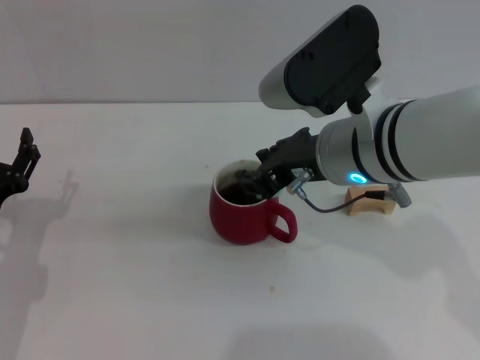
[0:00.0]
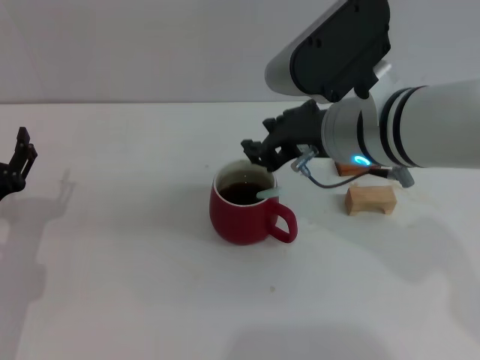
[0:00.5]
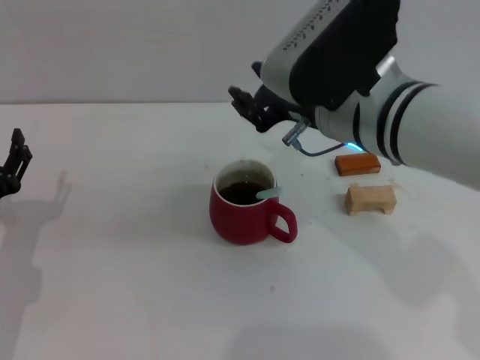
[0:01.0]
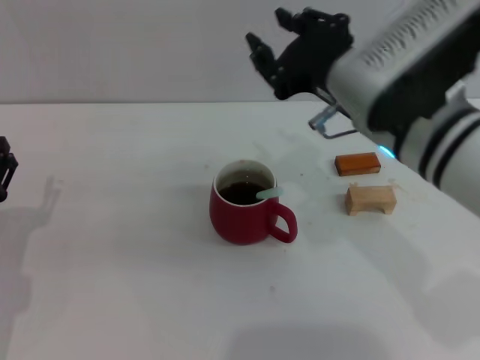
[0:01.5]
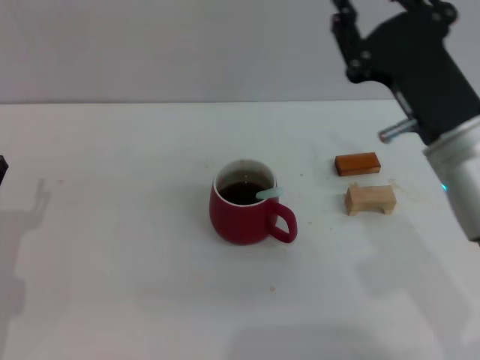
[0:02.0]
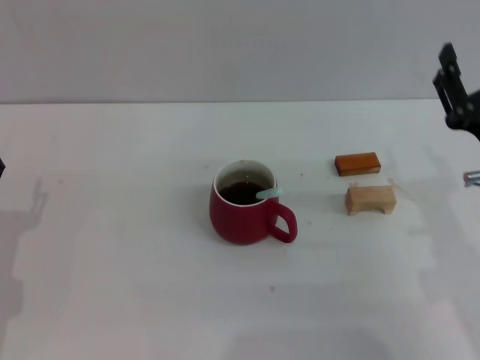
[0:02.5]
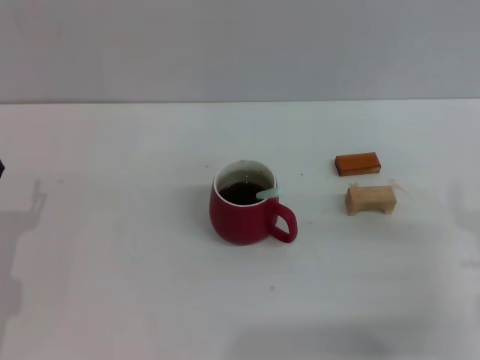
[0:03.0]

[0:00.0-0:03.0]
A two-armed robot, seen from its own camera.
Task of the whole recording: Move the red cup to the center, lift the blue spoon, stir it three times in the cup, and put the spoon into the cup.
0:01.5 to 0:03.0: The right gripper travels to the right, downward and backward by approximately 20 cm.

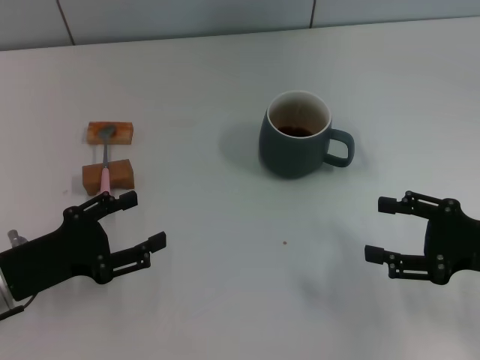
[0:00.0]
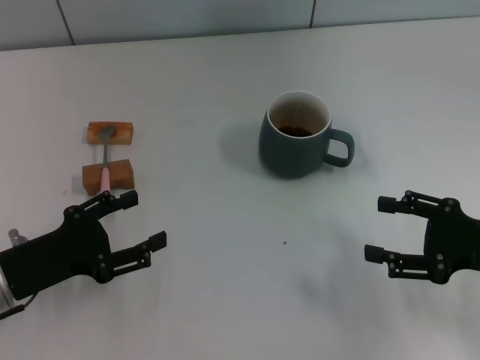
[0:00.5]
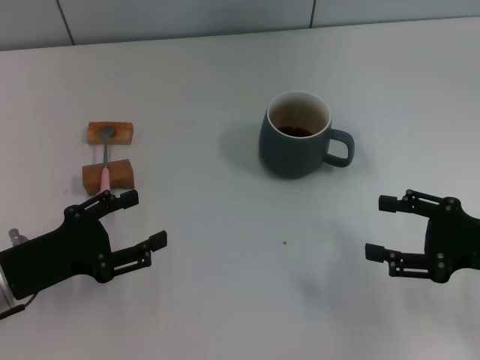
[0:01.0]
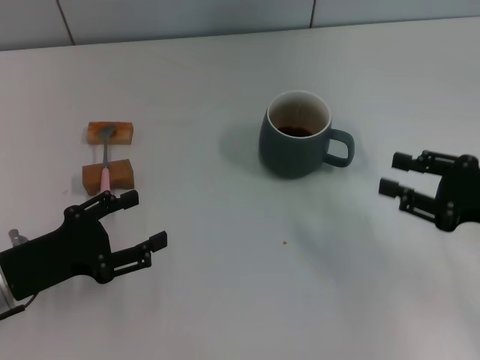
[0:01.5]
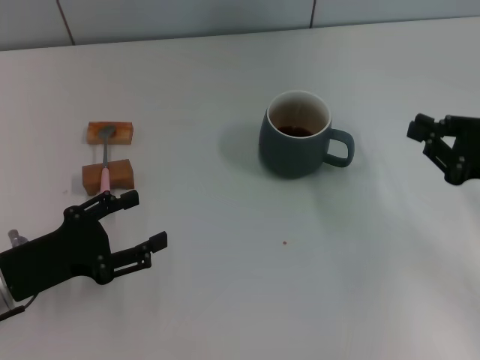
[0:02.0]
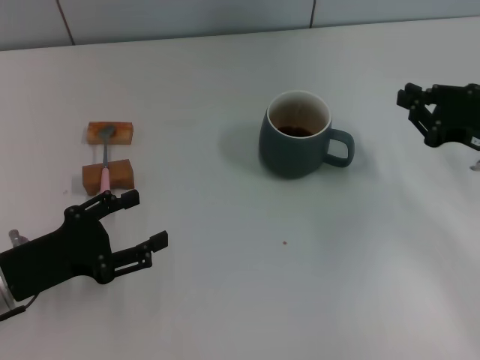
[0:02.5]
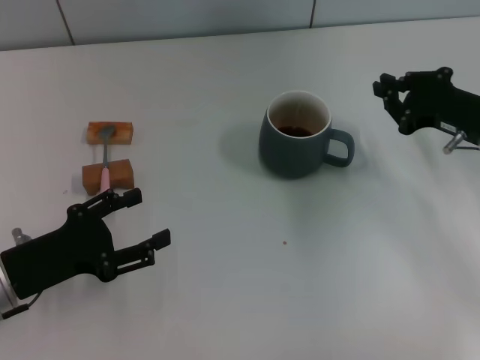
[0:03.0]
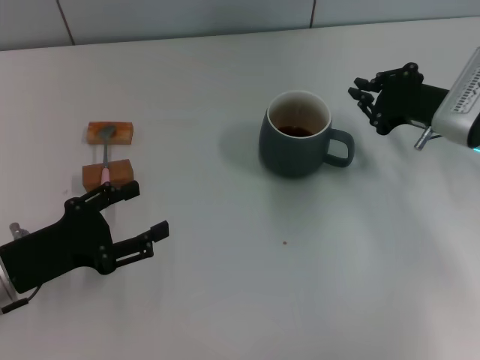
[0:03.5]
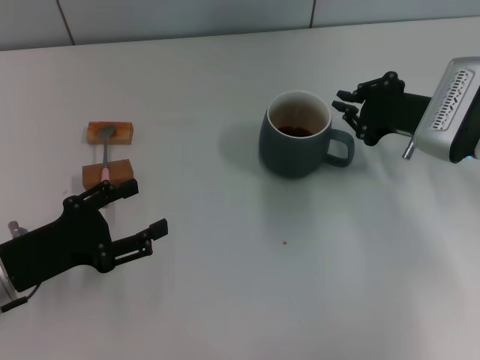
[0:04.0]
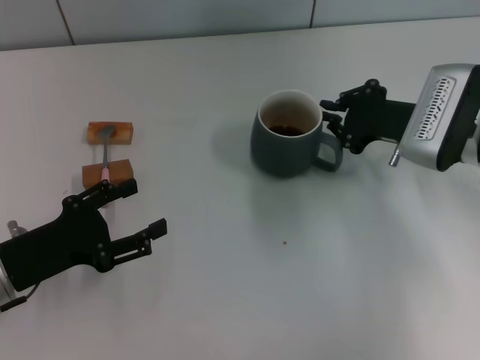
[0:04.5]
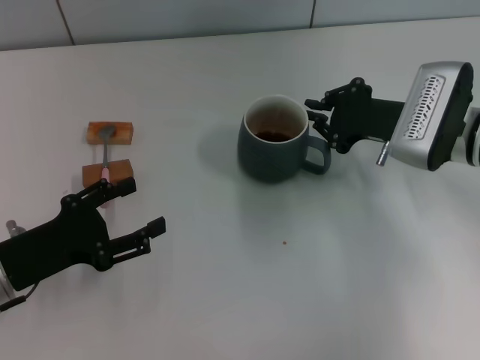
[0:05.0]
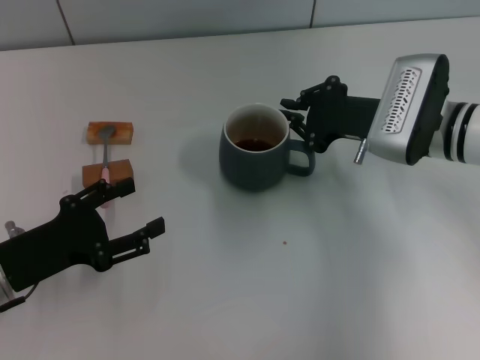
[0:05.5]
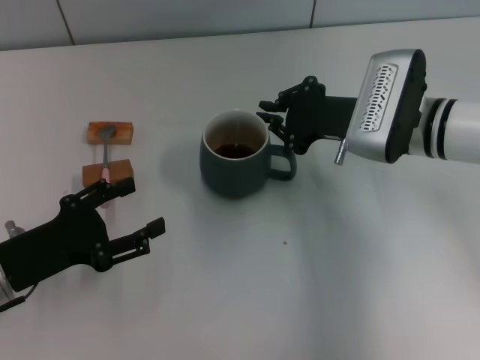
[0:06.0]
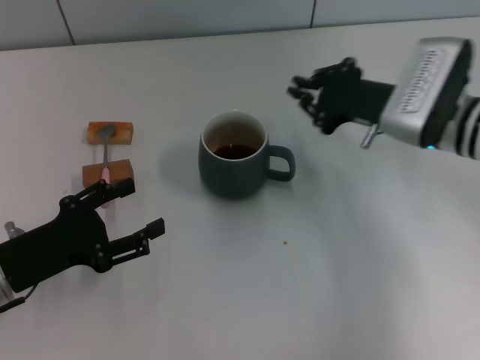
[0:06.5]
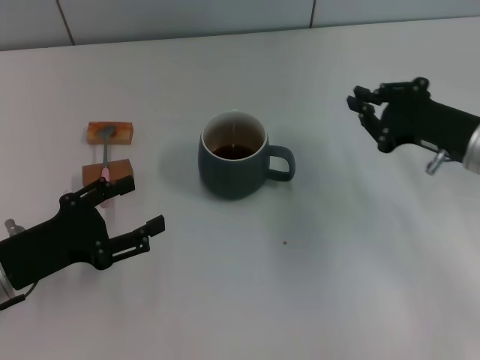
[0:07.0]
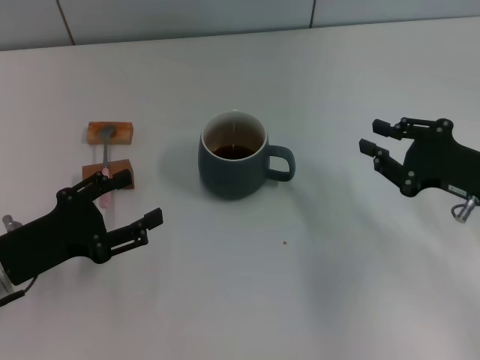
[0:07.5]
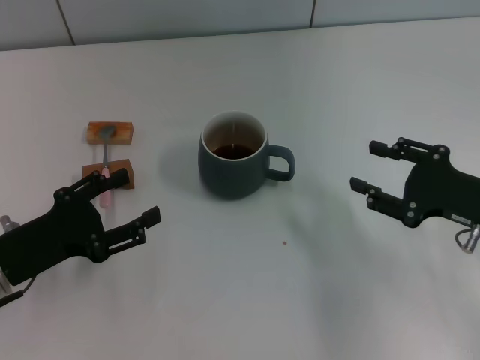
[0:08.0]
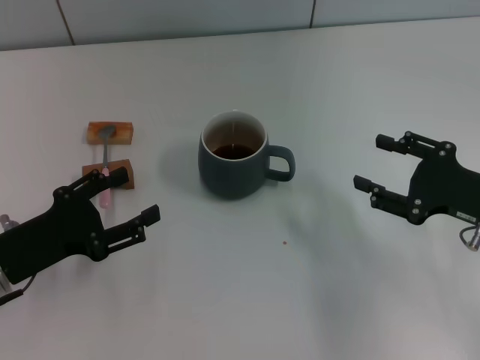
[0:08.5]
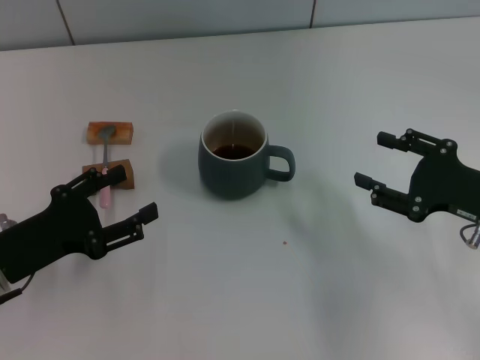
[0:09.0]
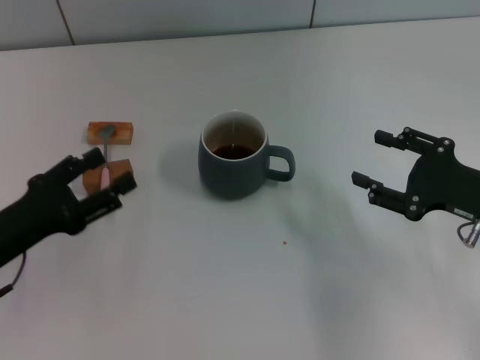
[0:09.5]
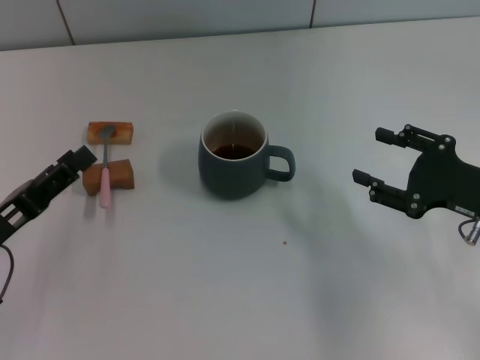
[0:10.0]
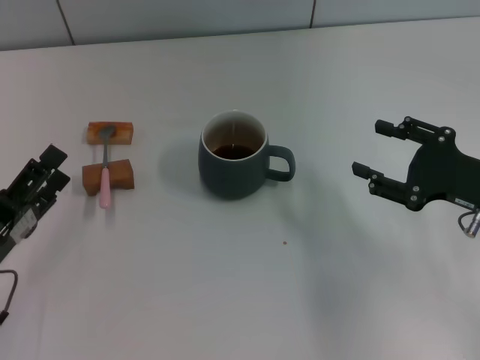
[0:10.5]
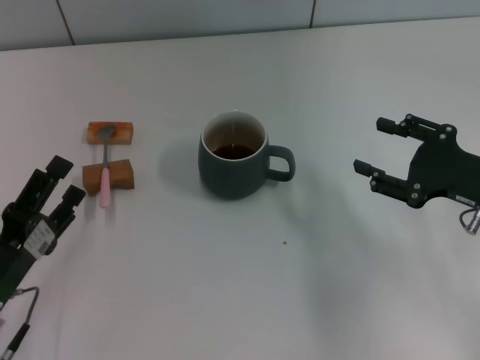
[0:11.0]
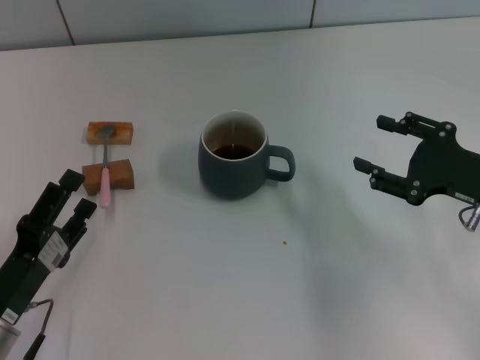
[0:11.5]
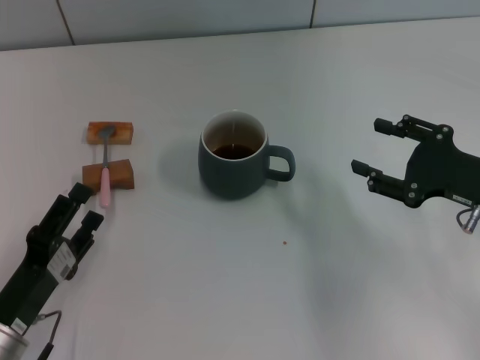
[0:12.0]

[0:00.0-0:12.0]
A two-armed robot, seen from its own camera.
Task of the whole recording: Move the grey cup to the center, lift the pink spoon, stir it three times in the cup, and put the spoon into the cup.
Step, 0:00.0 to 0:06.0: Move the cup with coffee to the center of view with the right gripper.
0:00.0 to 0:02.0: The right gripper closes its fingers.
0:02.0 to 0:04.0: The right gripper heads forward and to the left, covering roughly 15 cm.
0:04.0 to 0:06.0: The right gripper moves to the left, about 10 cm.
0:06.0 to 0:08.0: The right gripper travels to the right and backward by some 15 cm, and opens up.
0:10.0 to 0:12.0: The left gripper goes some 5 cm backward and downward.

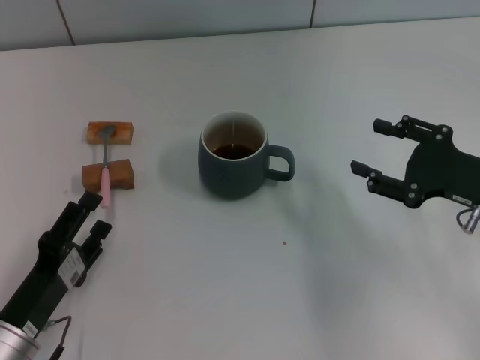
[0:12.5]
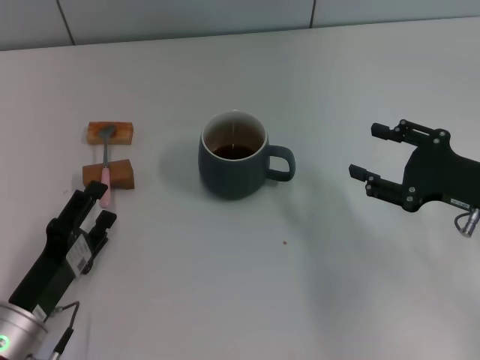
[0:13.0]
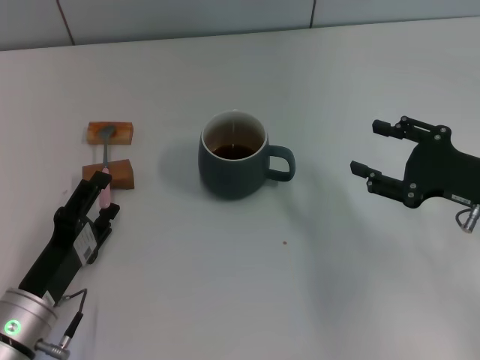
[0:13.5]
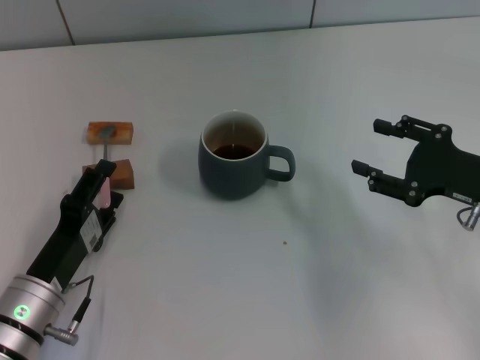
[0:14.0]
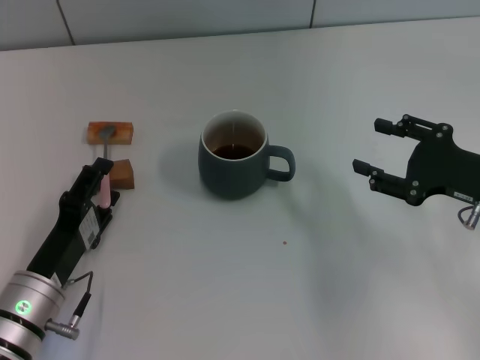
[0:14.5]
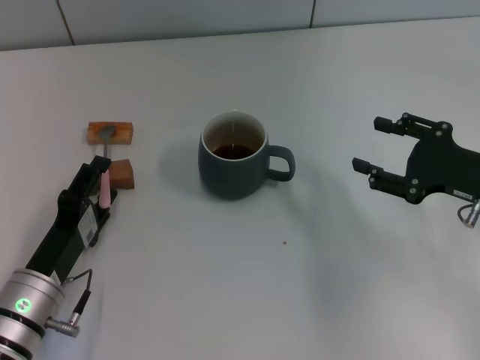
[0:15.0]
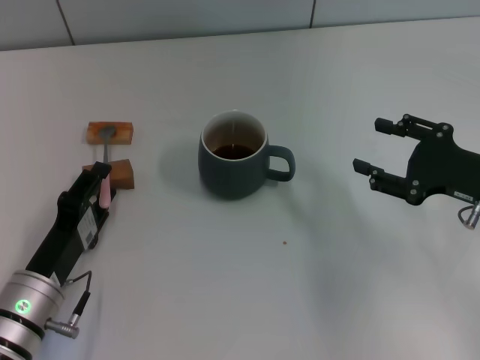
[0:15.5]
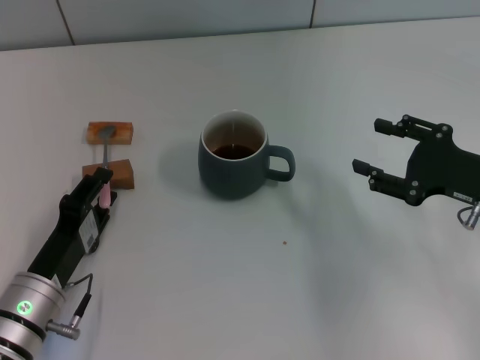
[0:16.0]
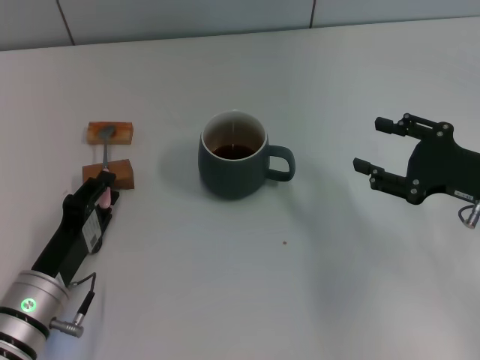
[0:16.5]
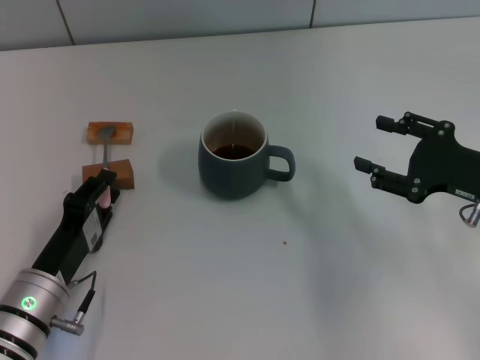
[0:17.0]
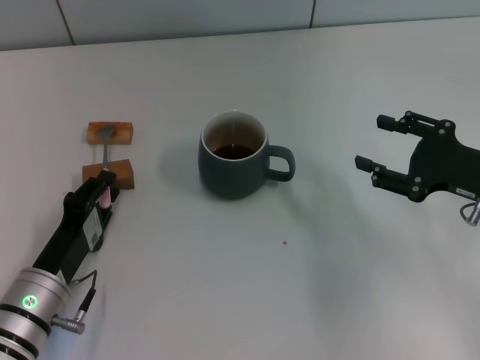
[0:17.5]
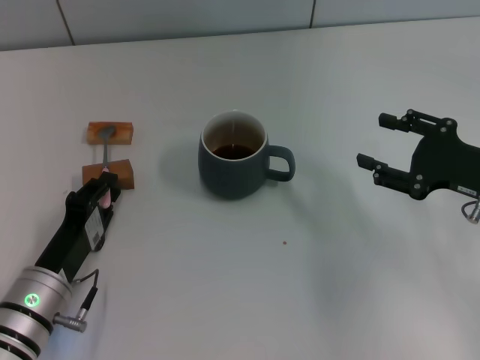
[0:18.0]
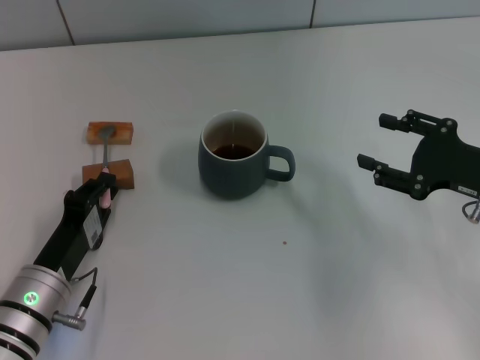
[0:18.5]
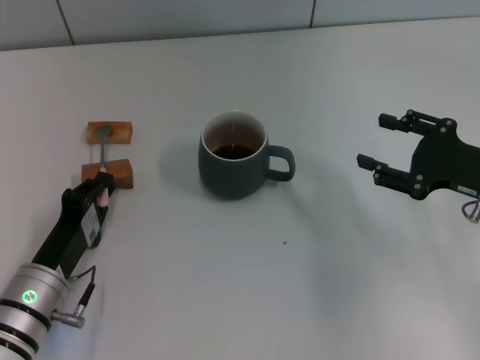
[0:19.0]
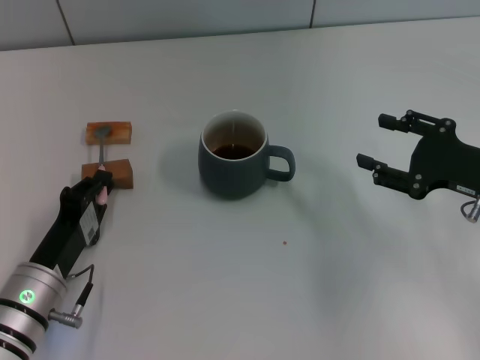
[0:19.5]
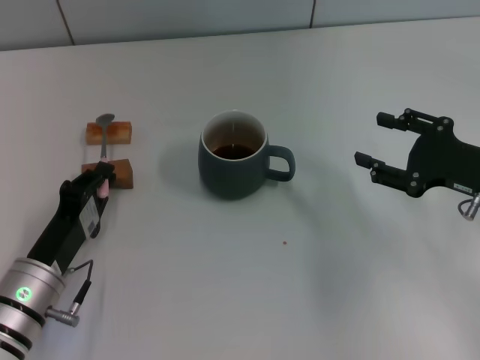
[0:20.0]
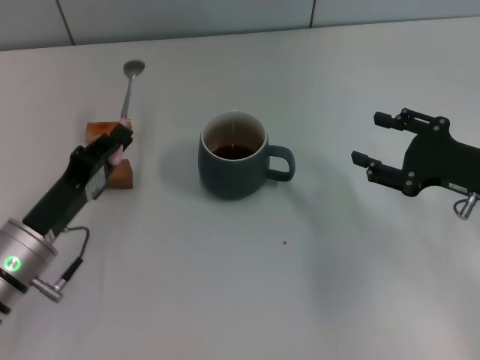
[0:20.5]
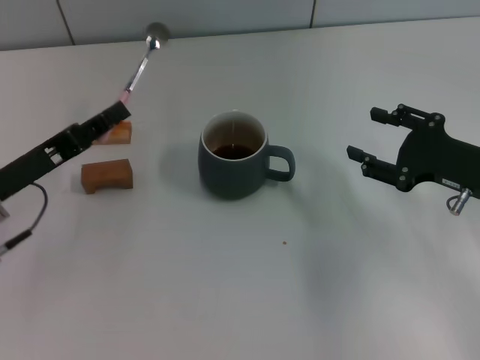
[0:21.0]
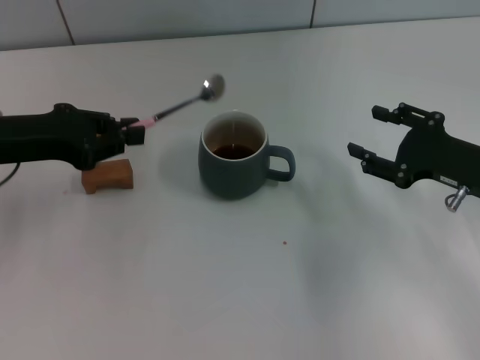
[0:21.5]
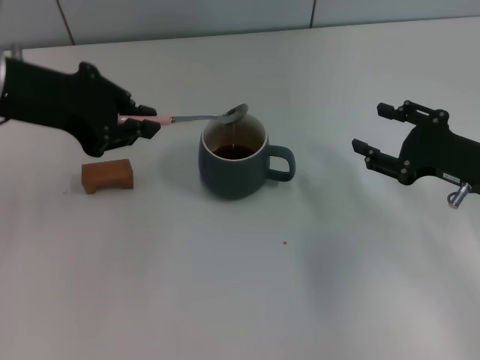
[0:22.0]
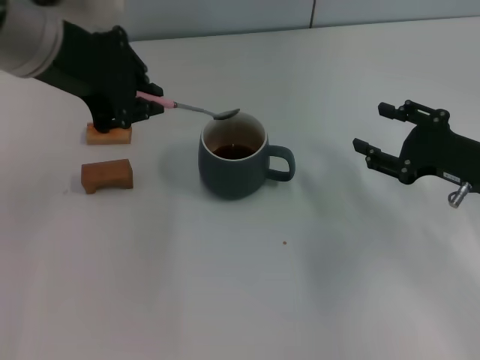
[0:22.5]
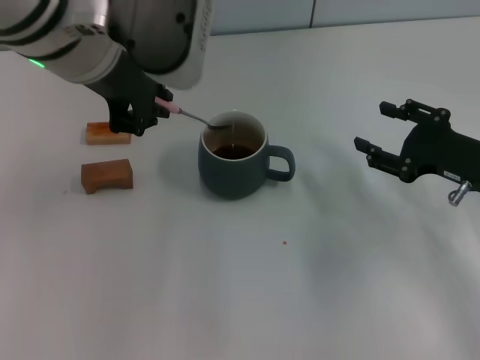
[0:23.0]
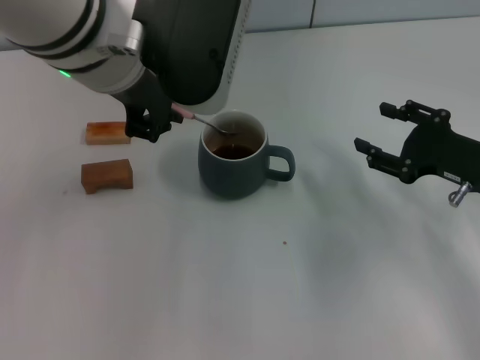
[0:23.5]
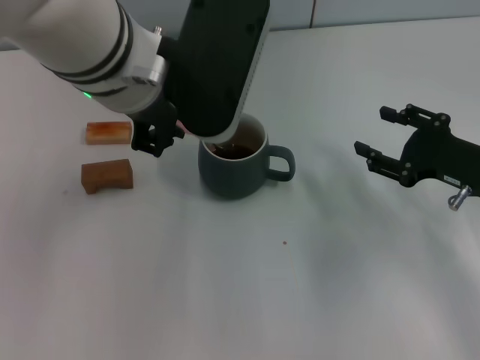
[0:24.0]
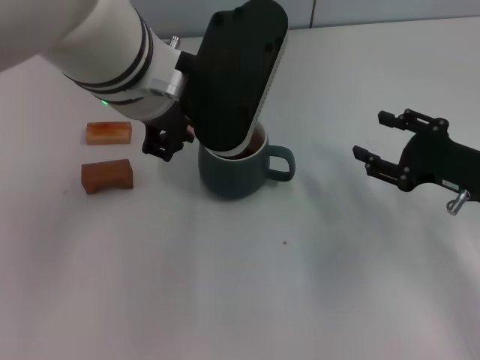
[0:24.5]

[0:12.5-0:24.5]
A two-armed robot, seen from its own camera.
Task of the whole recording: Move the grey cup to the center, lift the pink spoon, stir it three times in the cup, and put the spoon into the cup.
Step, 0:12.5 to 0:19.5: Pick up the spoon with the left gripper.
0:12.5 to 0:14.5: The grippers make only small movements.
0:14.5 to 0:16.5: The left gripper closes its fingers.
0:16.5 to 0:18.5: The left gripper closes its fingers.
0:18.5 to 0:20.5: The left gripper shifts by about 5 cm.
0:20.5 to 0:22.5: The left gripper moves upward, approximately 25 cm.
0:22.5 to 0:24.5: The left gripper travels to the right by roughly 10 cm.
